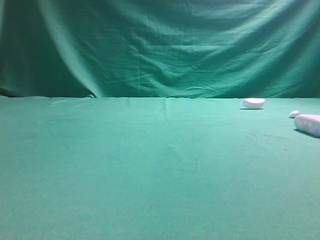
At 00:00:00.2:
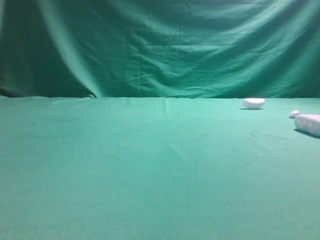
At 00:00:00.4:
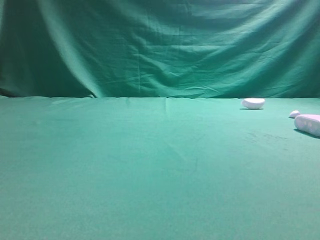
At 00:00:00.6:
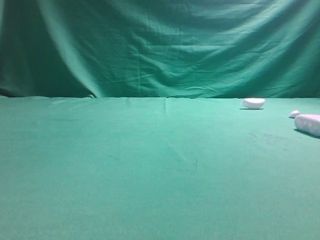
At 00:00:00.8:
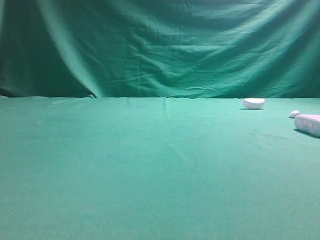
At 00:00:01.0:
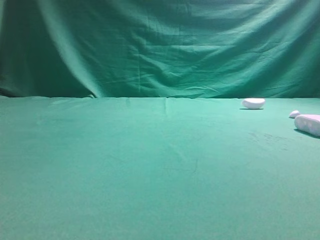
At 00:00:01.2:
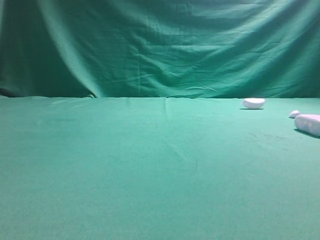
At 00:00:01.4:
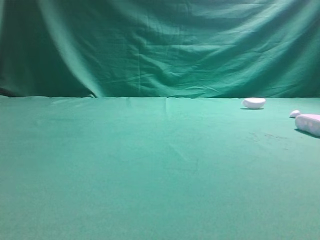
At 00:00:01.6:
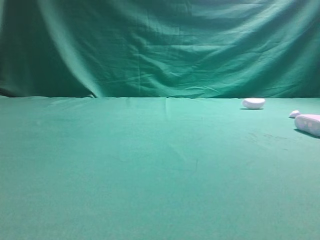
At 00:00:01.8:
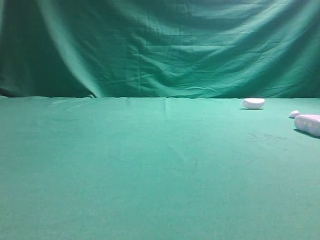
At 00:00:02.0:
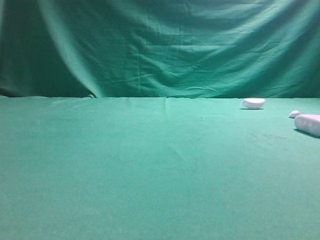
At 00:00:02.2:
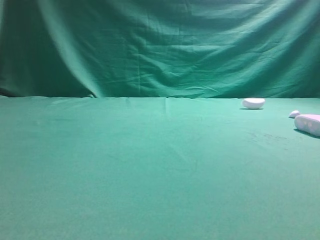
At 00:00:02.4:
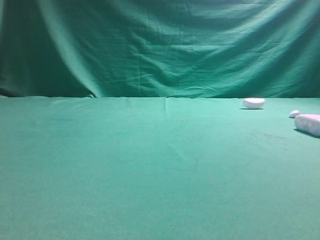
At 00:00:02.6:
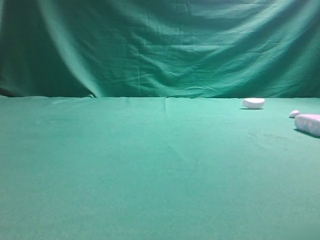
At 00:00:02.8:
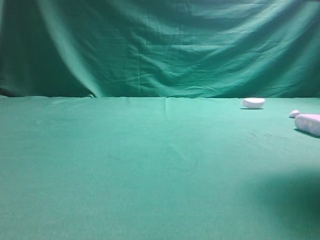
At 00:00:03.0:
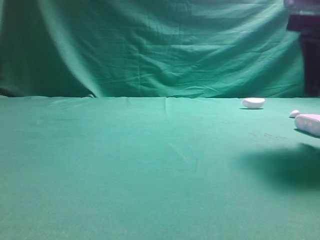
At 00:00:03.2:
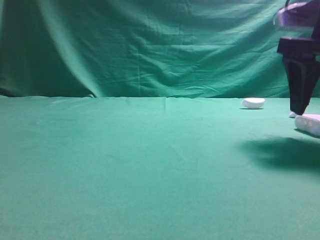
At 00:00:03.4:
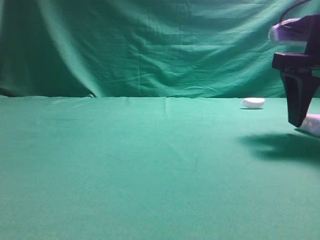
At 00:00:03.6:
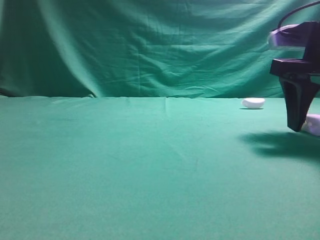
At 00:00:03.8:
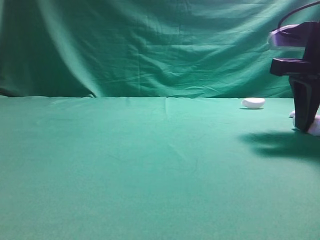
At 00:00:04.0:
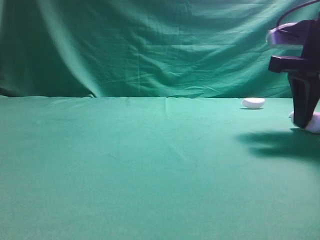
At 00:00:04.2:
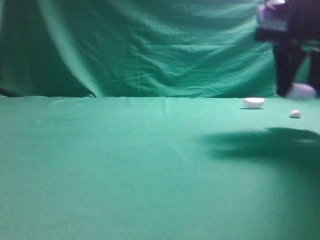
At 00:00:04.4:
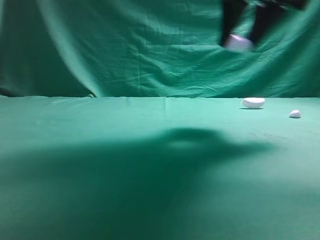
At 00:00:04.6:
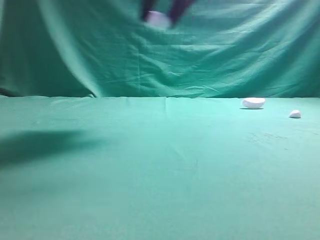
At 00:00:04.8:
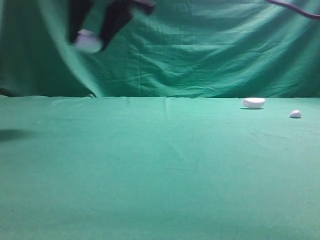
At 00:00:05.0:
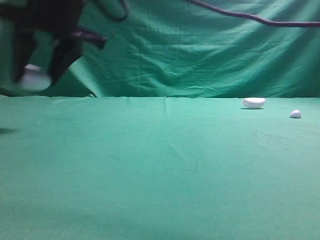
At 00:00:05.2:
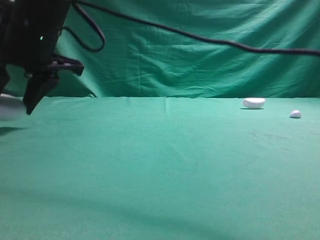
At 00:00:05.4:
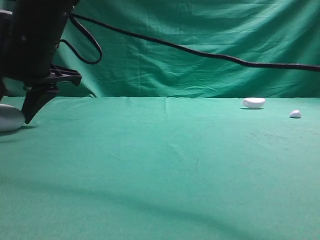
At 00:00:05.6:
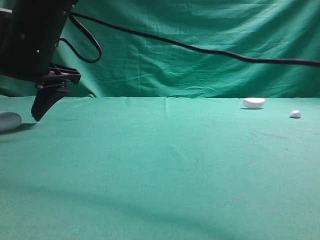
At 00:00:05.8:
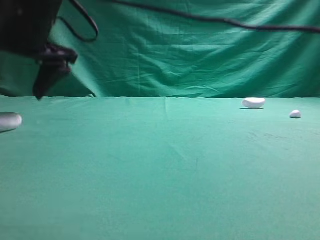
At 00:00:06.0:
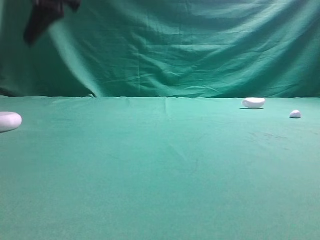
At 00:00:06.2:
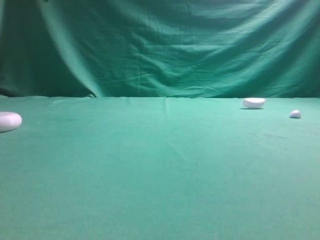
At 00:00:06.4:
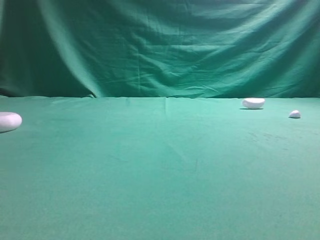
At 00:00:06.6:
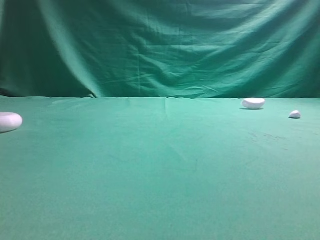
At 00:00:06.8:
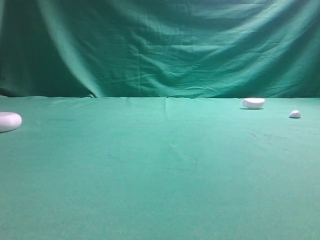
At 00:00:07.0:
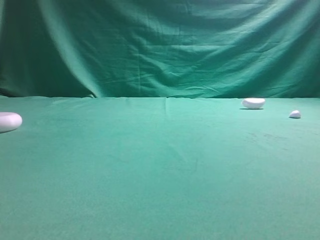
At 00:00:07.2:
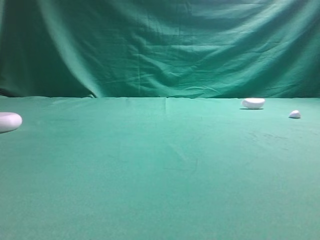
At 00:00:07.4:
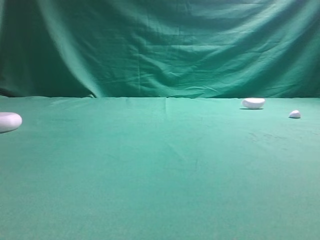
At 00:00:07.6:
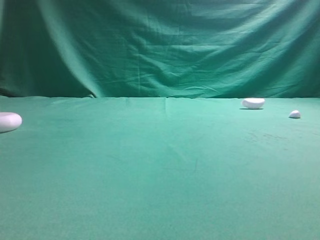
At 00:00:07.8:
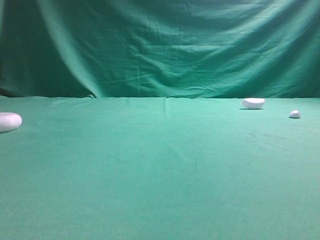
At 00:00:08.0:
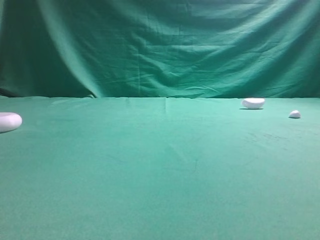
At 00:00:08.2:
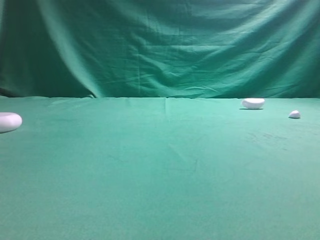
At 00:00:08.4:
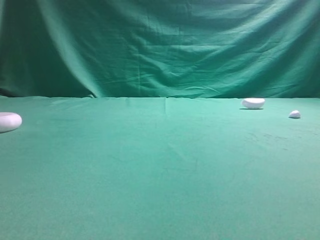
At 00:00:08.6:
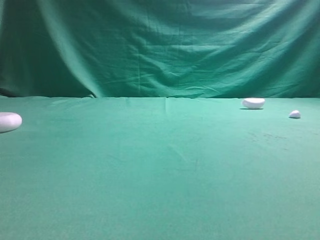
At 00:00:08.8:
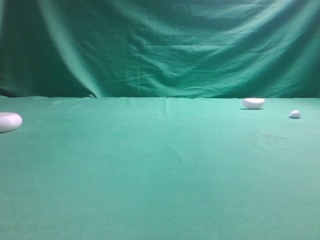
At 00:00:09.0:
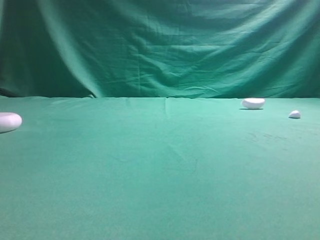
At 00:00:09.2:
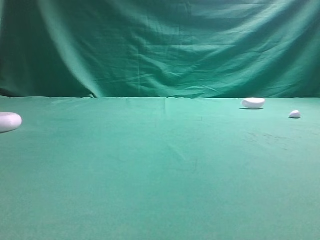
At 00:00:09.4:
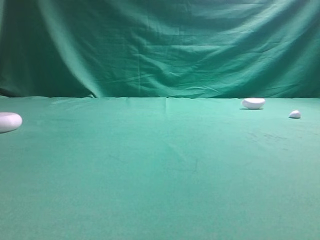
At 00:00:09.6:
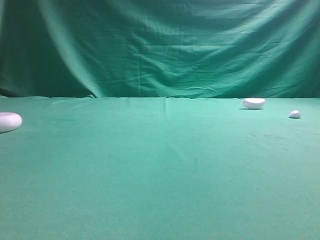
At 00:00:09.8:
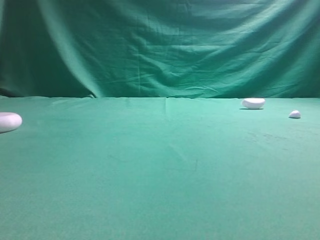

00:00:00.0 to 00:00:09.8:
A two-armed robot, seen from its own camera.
Step, 00:00:00.0 to 00:00:03.4: Grasp the Bluetooth earphone case.
Step, 00:00:03.6 to 00:00:05.8: Place bluetooth earphone case on the left side of the table.

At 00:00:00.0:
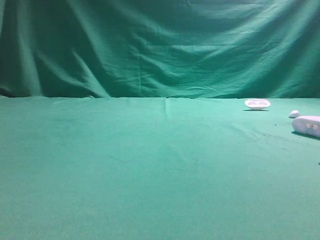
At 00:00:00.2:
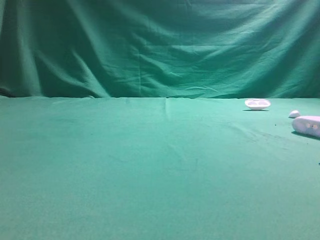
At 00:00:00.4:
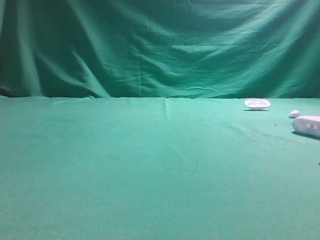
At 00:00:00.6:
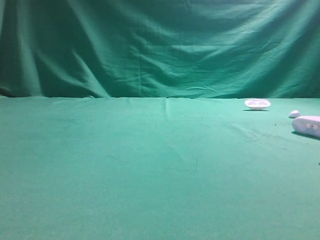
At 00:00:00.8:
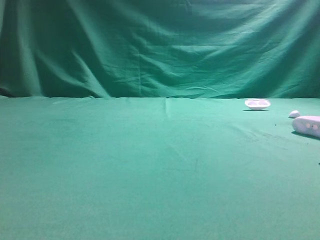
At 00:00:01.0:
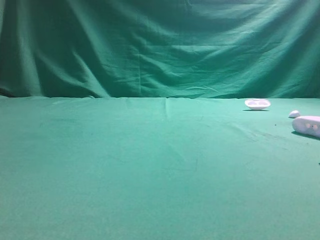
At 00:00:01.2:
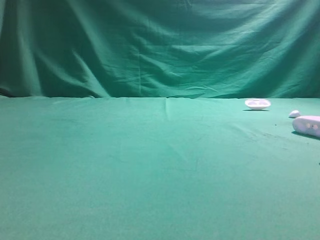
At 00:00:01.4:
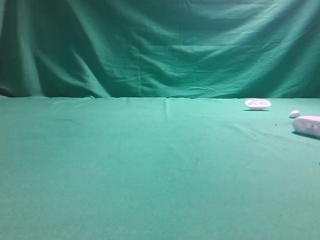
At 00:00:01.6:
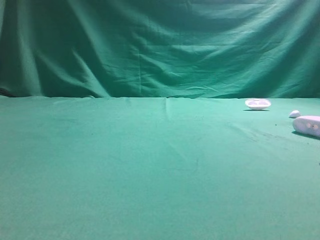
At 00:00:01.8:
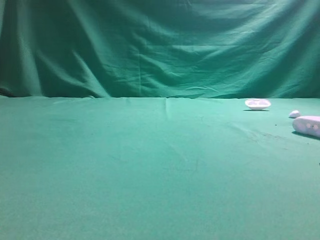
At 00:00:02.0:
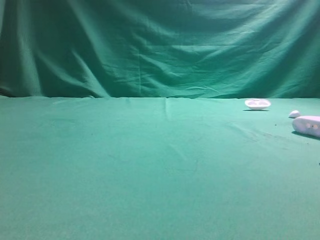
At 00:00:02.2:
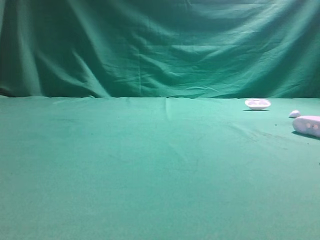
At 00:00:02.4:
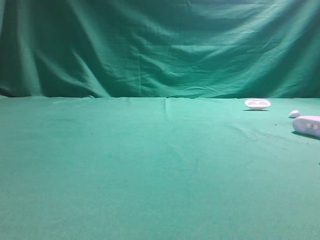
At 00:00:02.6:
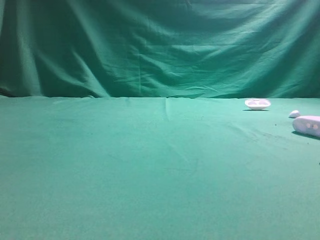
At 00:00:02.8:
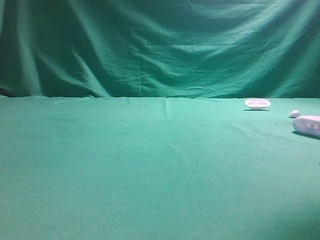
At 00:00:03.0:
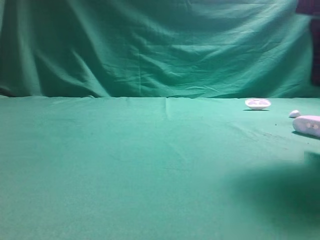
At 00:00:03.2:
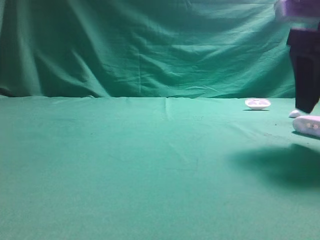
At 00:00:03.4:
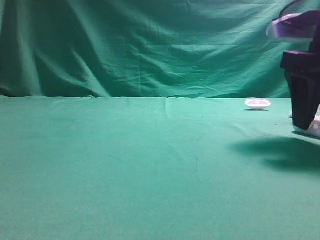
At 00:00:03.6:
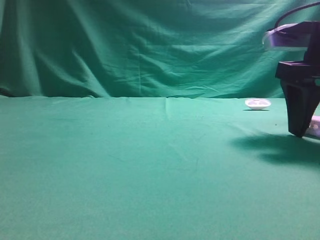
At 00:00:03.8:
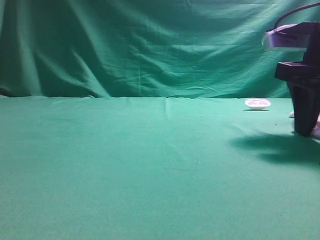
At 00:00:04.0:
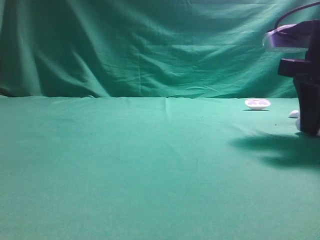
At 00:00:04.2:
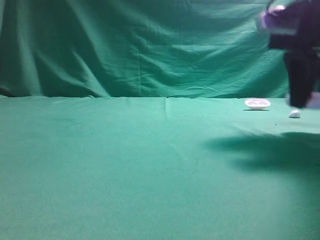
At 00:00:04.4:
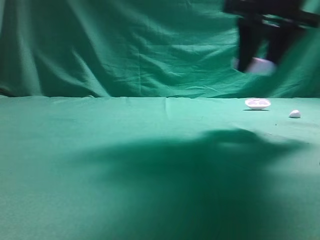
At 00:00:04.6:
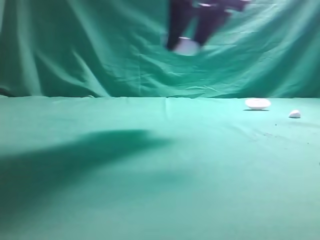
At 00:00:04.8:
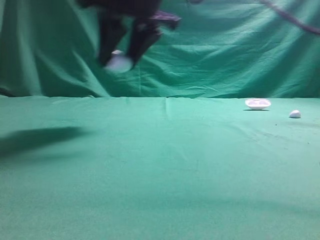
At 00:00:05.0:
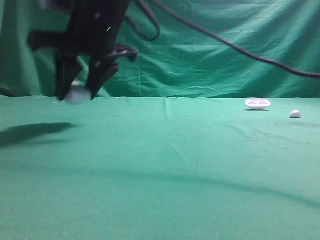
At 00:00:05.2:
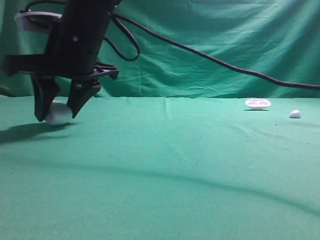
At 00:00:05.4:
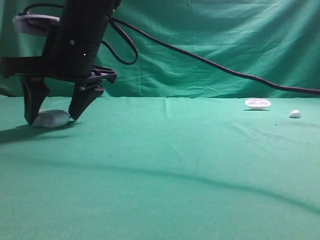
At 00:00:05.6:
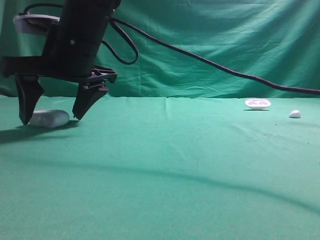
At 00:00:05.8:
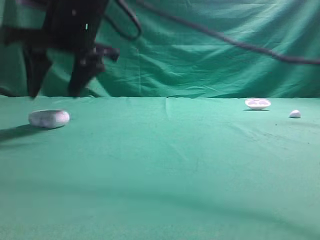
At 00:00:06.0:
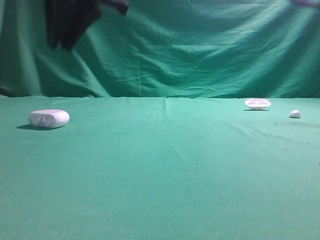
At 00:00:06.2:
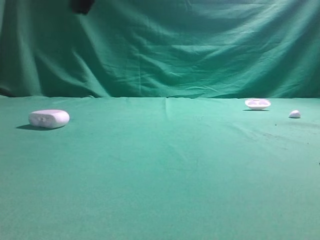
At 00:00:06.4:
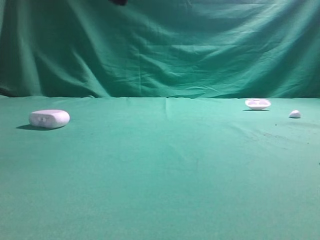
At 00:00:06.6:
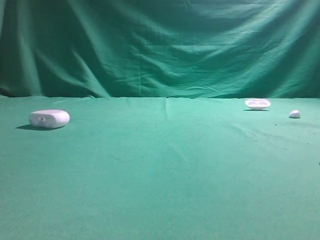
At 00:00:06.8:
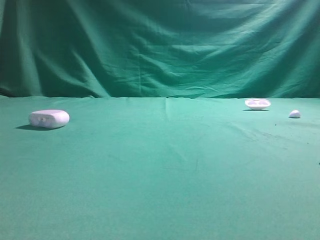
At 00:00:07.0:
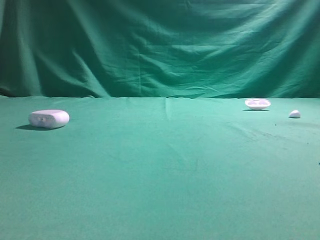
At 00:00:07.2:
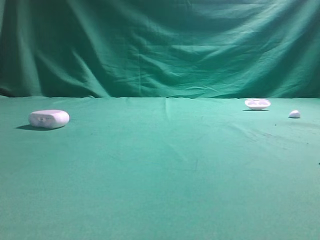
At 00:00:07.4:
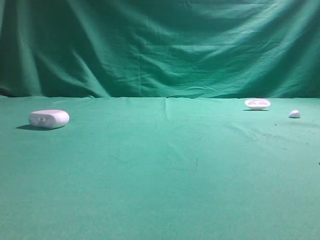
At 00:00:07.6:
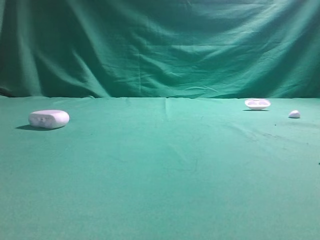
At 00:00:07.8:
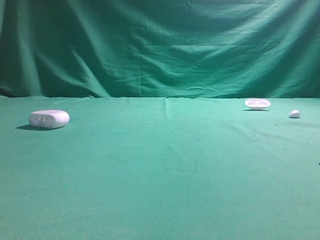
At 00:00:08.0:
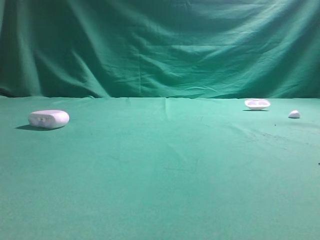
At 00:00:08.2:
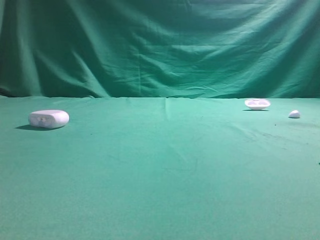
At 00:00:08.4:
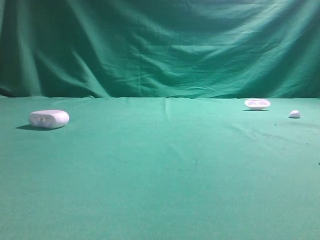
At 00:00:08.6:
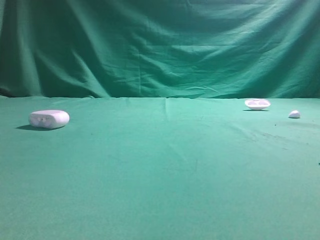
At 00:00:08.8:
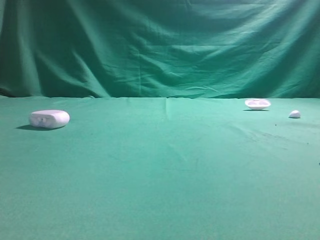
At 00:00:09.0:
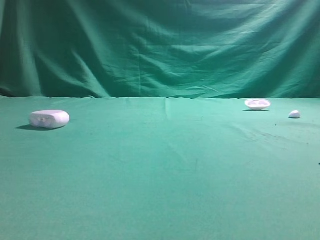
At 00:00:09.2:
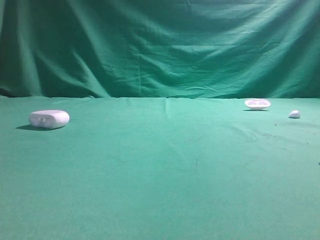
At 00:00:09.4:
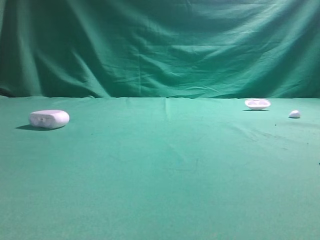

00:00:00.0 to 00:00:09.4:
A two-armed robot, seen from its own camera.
Step, 00:00:00.0 to 00:00:03.4: Grasp the Bluetooth earphone case.
Step, 00:00:03.6 to 00:00:05.6: Place bluetooth earphone case on the left side of the table.
